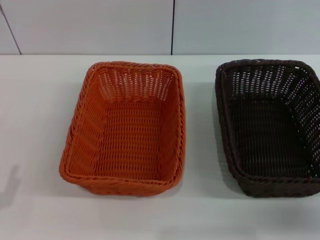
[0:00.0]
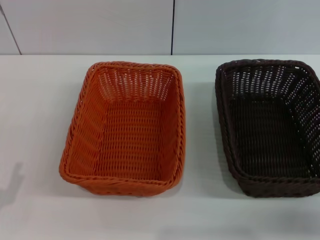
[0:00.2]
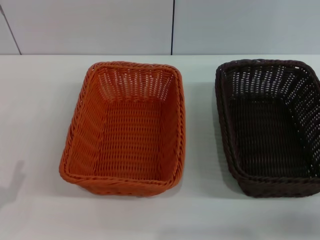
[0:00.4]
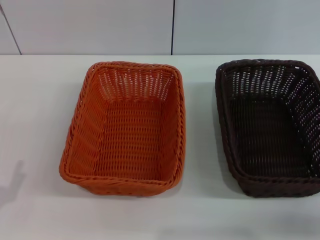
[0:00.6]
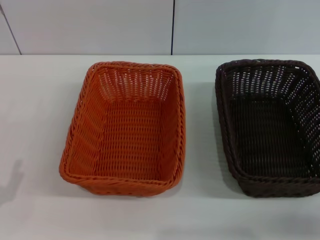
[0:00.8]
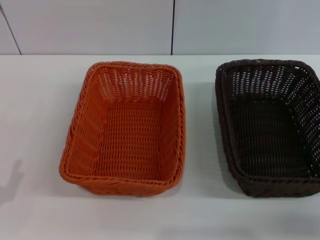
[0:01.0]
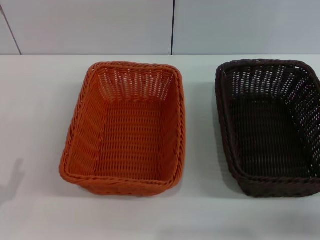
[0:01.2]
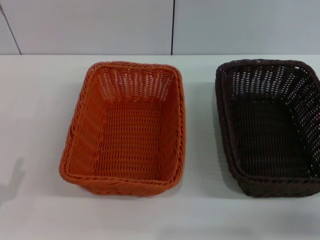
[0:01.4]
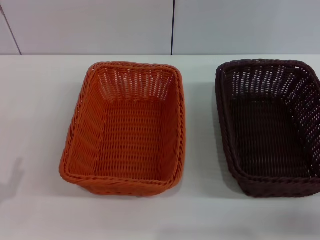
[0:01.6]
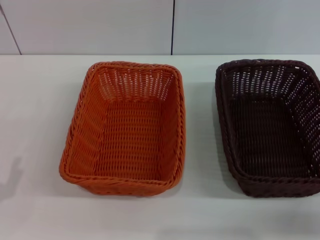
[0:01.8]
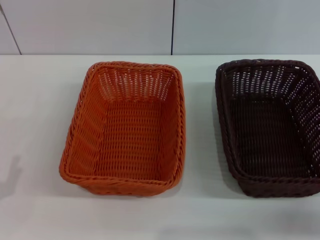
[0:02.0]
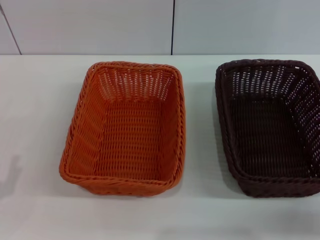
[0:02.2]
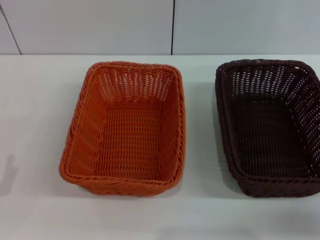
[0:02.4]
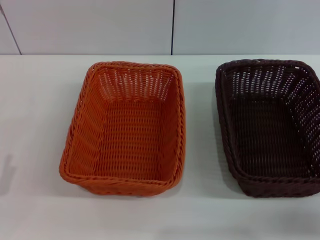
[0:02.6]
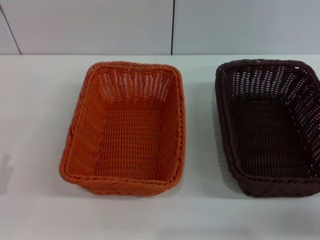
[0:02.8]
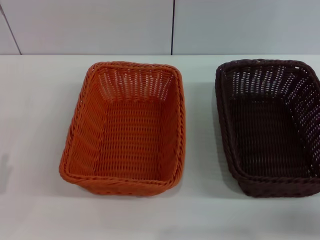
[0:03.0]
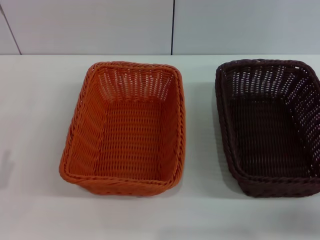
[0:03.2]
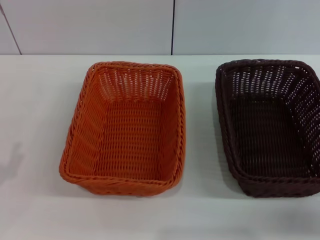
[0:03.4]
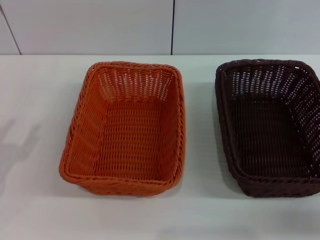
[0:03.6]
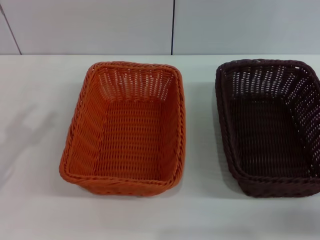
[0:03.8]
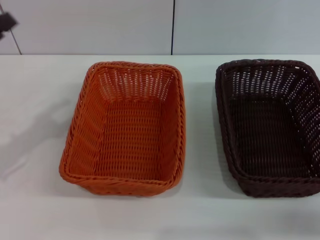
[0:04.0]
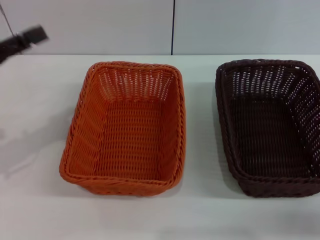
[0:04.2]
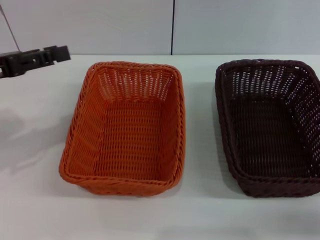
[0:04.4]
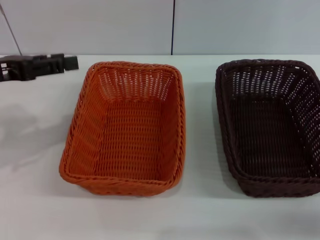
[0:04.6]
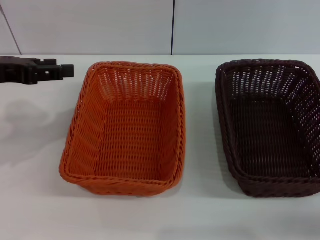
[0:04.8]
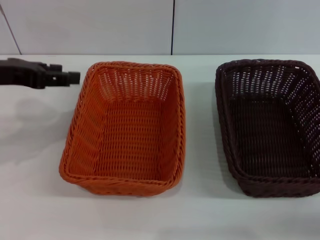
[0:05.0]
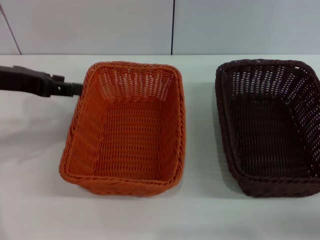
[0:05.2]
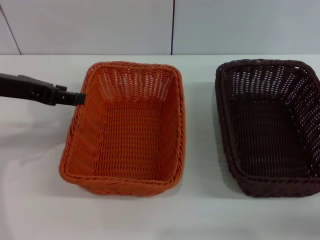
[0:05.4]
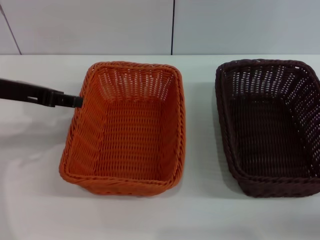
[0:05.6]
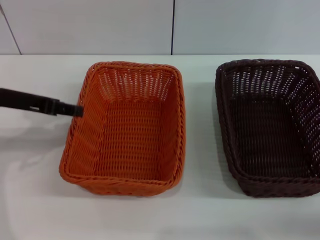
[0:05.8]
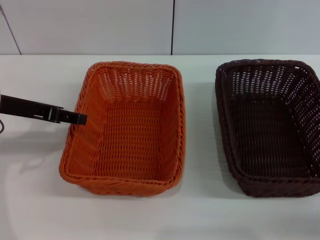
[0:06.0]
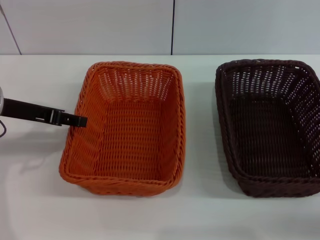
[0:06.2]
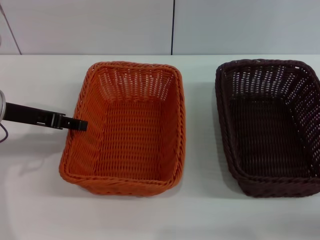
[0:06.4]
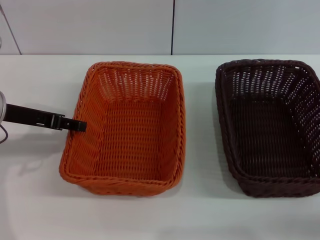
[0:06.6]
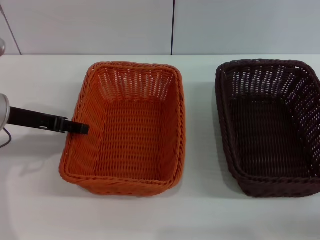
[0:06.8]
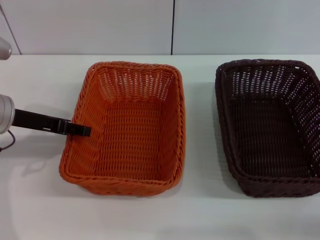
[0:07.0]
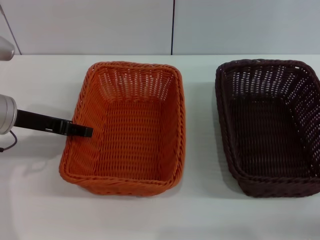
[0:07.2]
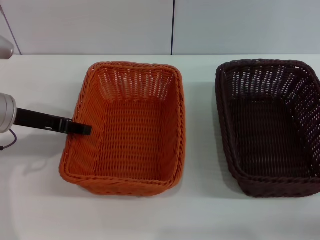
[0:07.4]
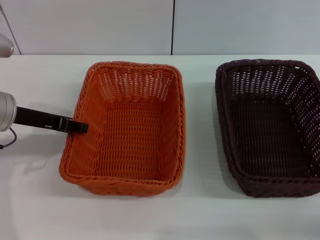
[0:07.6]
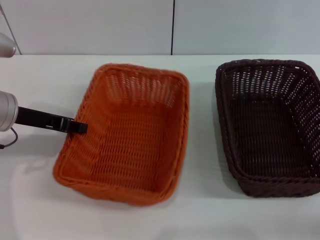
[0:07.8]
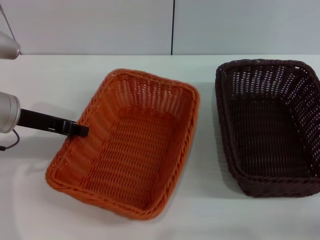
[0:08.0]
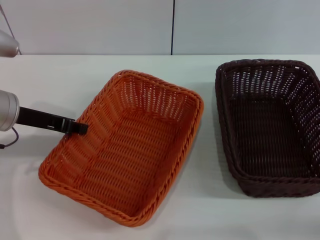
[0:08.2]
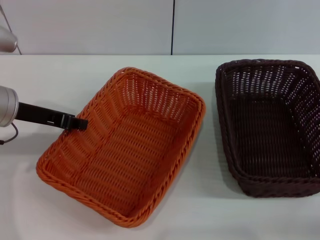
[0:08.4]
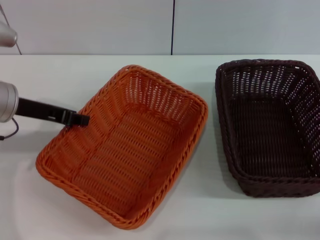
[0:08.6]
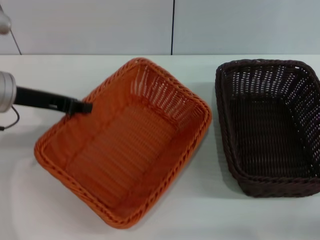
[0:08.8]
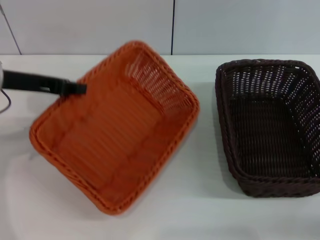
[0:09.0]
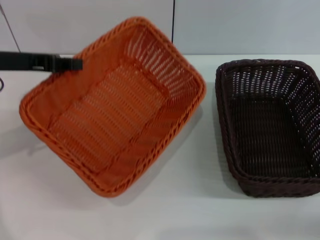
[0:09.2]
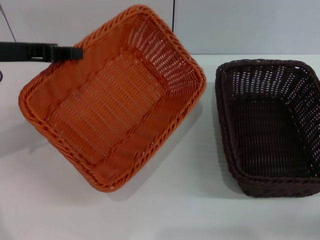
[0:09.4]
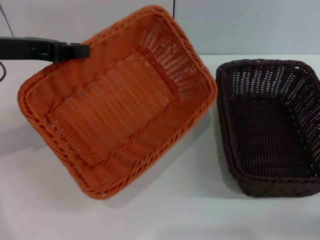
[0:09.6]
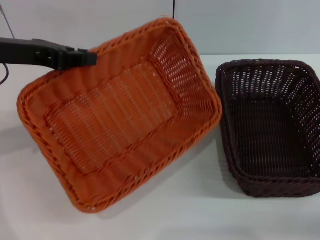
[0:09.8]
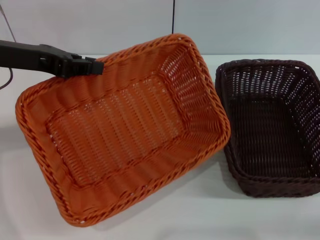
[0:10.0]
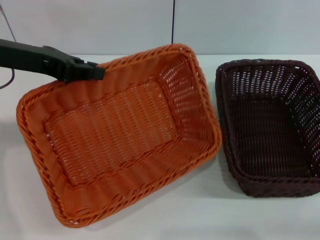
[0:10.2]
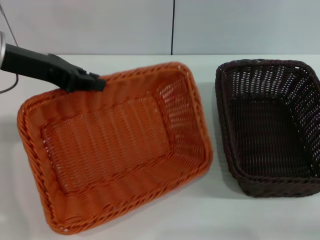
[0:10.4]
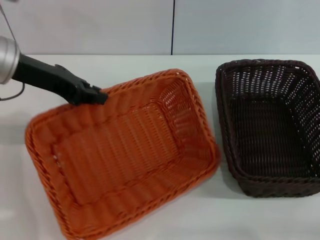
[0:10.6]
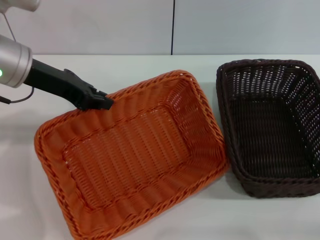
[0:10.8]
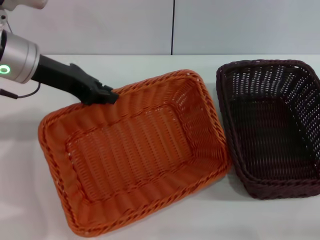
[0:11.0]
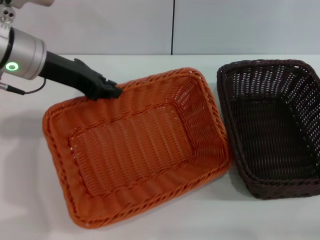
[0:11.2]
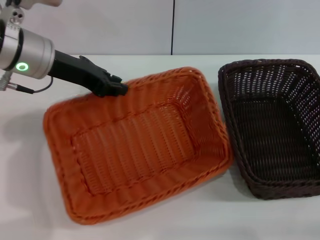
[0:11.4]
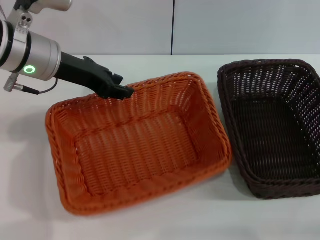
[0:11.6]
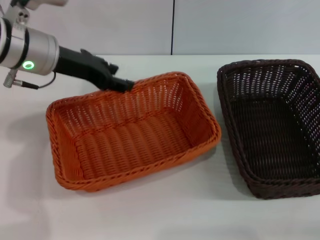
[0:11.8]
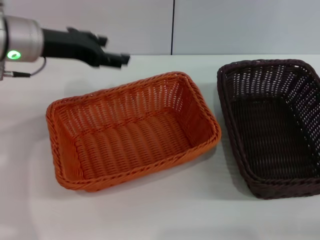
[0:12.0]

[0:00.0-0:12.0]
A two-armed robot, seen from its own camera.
Step, 0:00.0 to 0:08.4: Pick up the light basket with the left gripper.
0:03.0 to 0:04.4: The left gripper goes about 20 cm forward and upward.
0:04.4 to 0:06.0: The left gripper heads to the right, covering some 5 cm.
0:06.0 to 0:07.6: There are only small adjustments of the grippers.
0:07.6 to 0:09.0: The left gripper closes its fingers.
0:10.4 to 0:12.0: The left gripper opens its fingers.

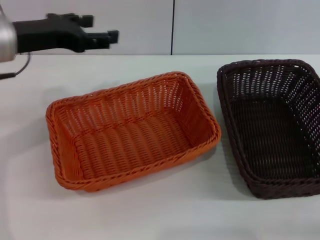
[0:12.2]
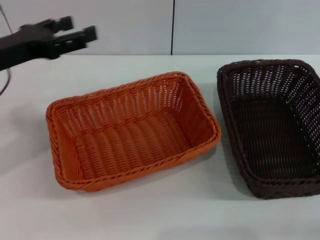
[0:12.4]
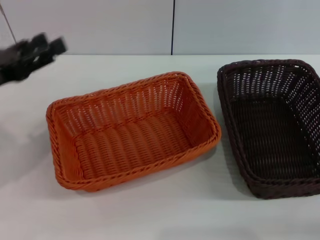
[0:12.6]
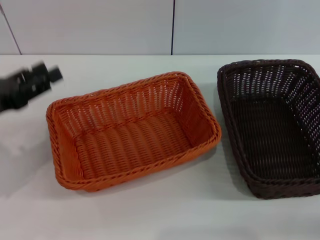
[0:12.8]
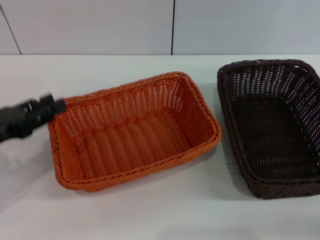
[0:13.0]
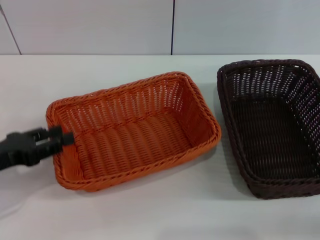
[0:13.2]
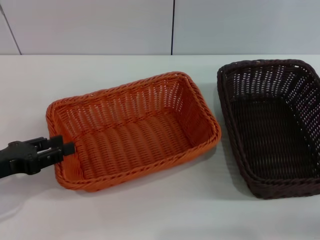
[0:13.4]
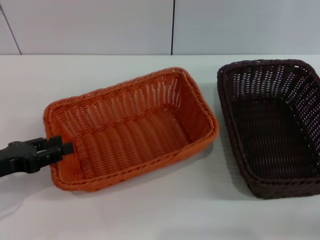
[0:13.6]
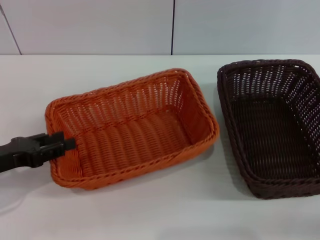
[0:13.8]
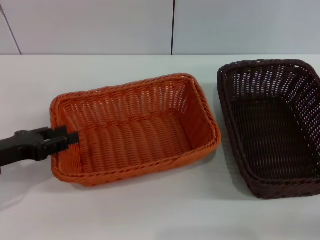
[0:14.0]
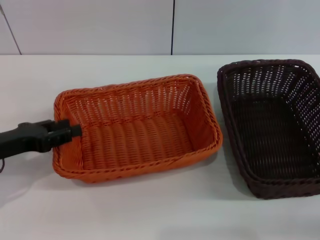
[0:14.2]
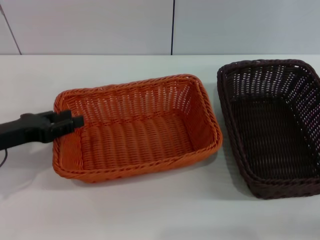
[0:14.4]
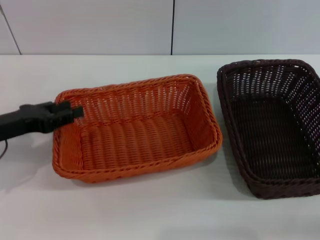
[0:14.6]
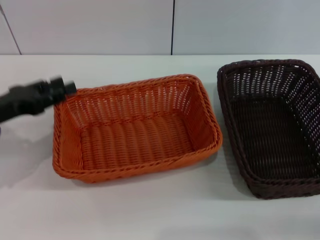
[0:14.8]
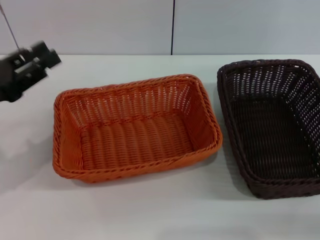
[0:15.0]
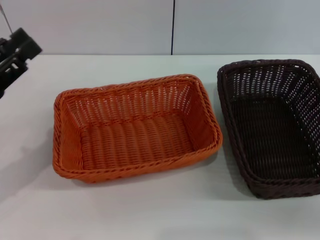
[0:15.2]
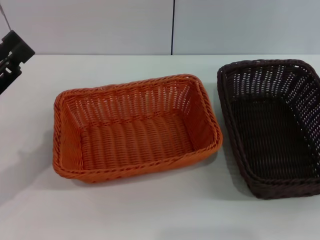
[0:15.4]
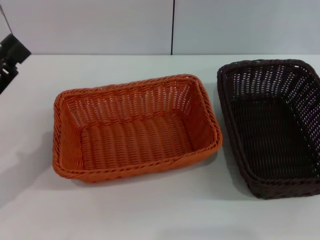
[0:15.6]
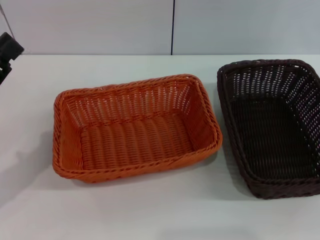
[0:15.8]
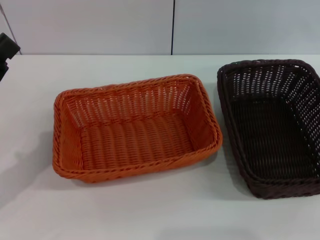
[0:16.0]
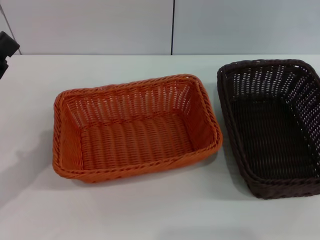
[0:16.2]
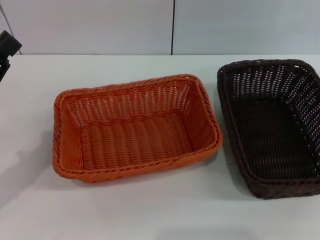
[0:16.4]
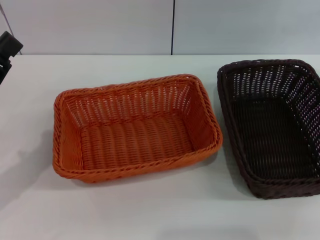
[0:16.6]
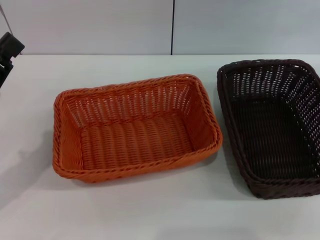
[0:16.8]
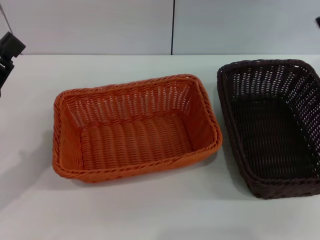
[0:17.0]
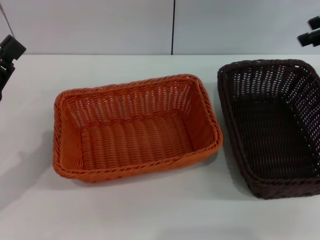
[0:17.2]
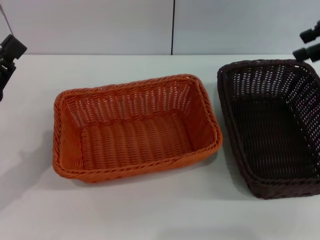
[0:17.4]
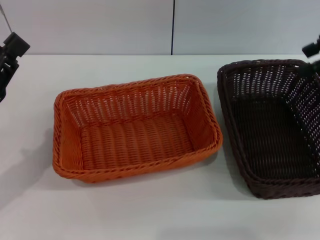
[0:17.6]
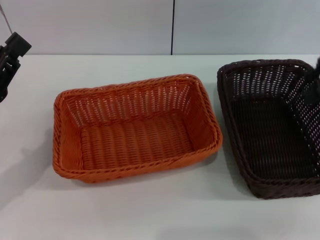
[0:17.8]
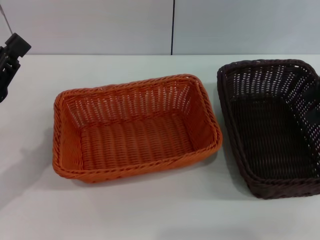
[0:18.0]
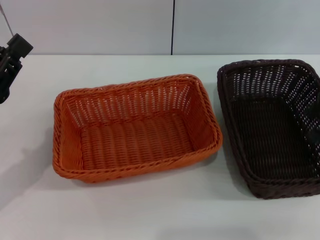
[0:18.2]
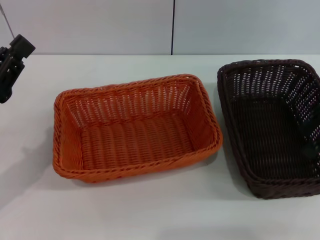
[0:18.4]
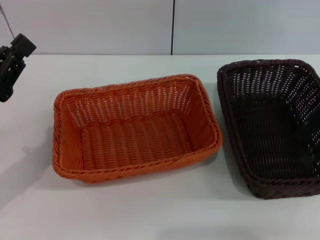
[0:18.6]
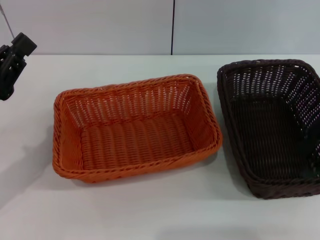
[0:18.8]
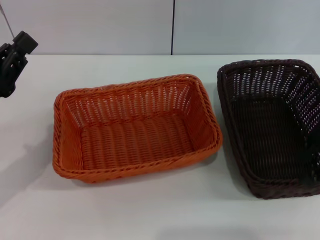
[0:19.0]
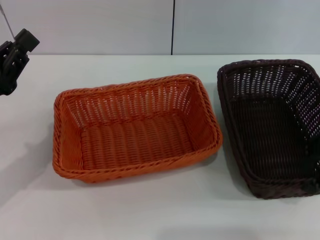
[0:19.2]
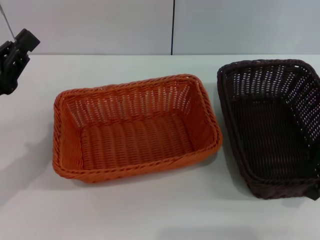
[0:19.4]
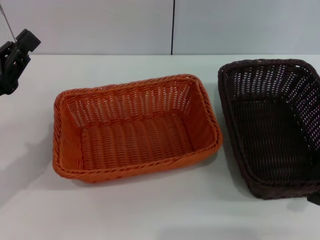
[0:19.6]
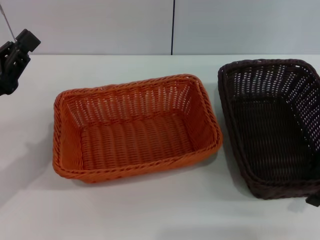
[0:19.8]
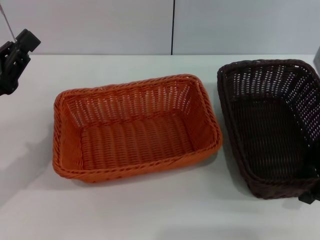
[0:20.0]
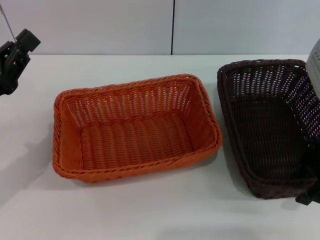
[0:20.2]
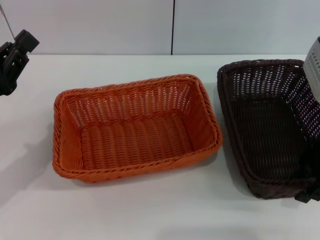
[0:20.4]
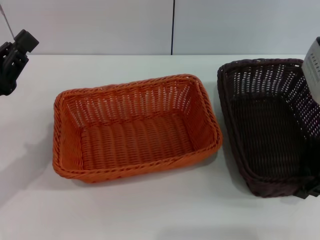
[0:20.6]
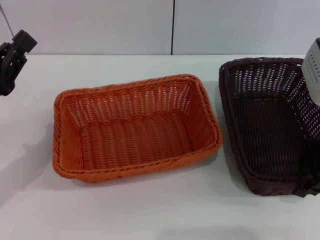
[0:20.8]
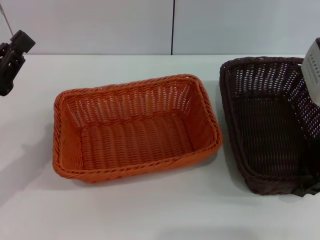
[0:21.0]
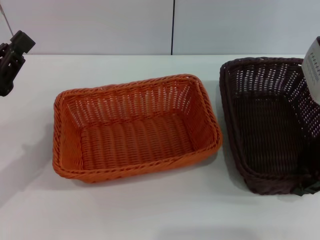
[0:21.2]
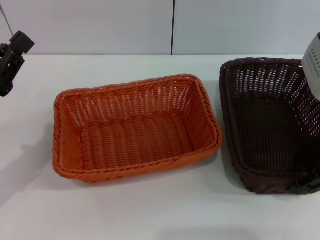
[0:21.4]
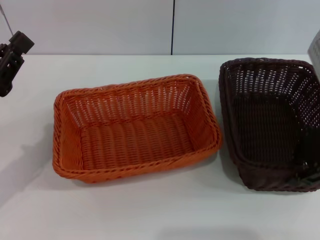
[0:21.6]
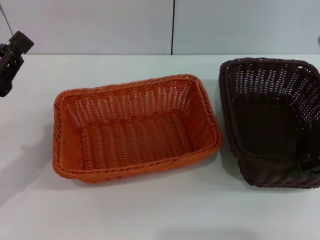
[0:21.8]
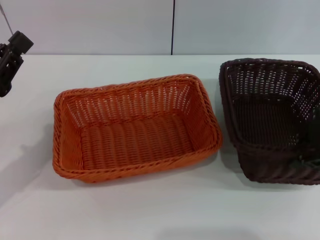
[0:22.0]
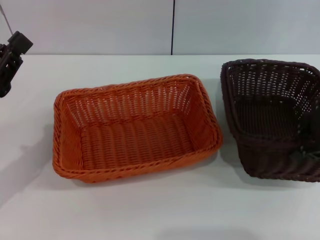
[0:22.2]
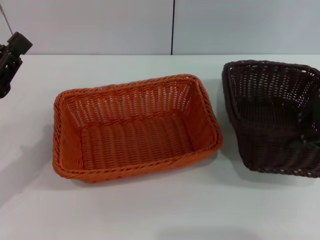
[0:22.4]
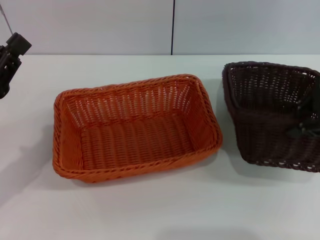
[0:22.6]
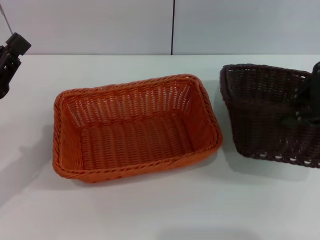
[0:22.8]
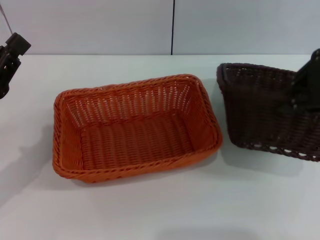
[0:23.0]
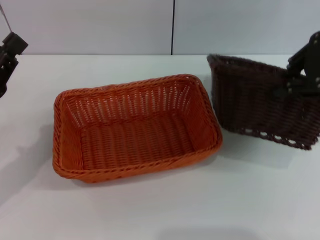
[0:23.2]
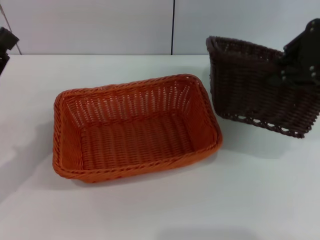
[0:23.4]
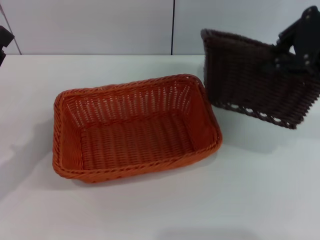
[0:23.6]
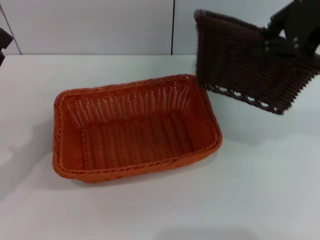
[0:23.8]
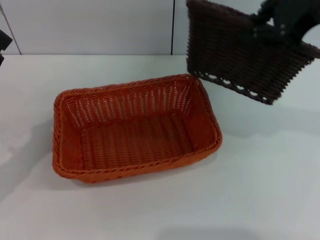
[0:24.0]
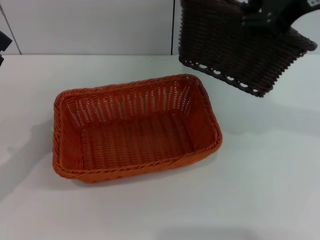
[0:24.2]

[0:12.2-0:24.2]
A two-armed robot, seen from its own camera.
Step, 0:14.4 to 0:22.0: Pick up the dark basket with the right gripper.
0:12.2 to 0:13.8: The left gripper travels downward, backward and to the left by approximately 20 cm, and closes up.
0:13.8 to 0:15.2: Both grippers move upward, about 5 cm.
0:15.2 to 0:16.6: The left gripper closes up. Meanwhile the right gripper goes approximately 25 cm forward and upward.
0:19.8 to 0:21.2: The right gripper closes its fingers.
0:21.2 to 0:22.6: The right gripper goes approximately 10 cm upward.
0:22.6 to 0:24.2: The right gripper travels upward and to the left by some 10 cm.
